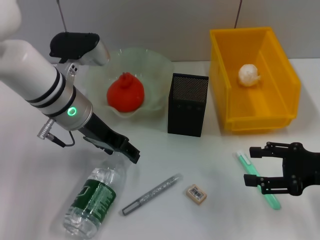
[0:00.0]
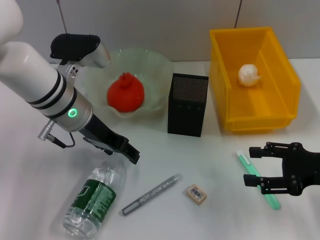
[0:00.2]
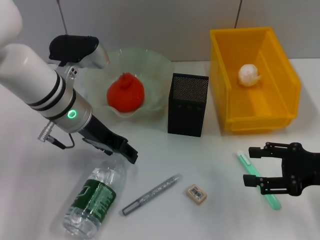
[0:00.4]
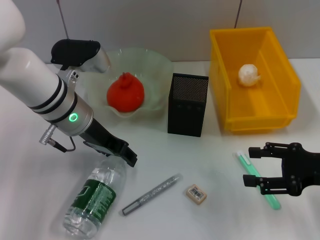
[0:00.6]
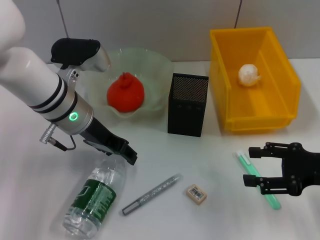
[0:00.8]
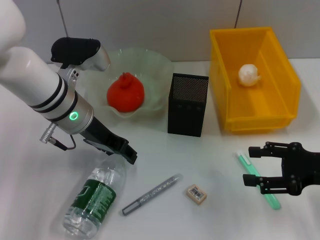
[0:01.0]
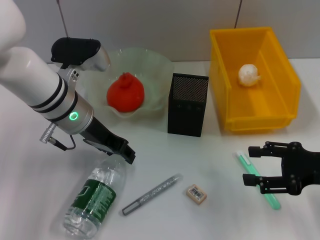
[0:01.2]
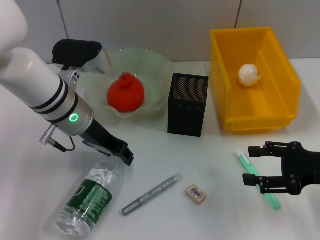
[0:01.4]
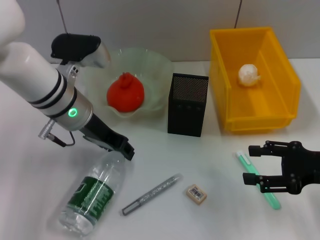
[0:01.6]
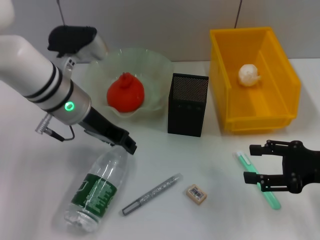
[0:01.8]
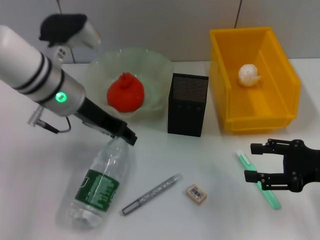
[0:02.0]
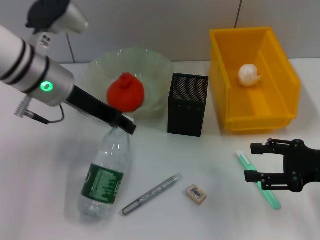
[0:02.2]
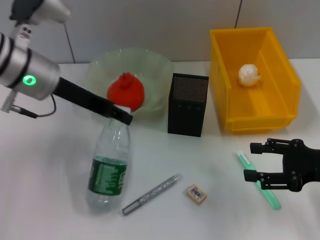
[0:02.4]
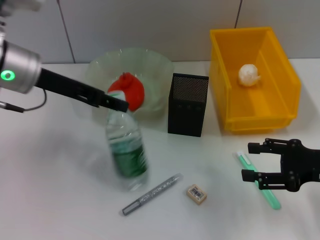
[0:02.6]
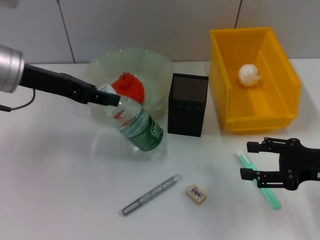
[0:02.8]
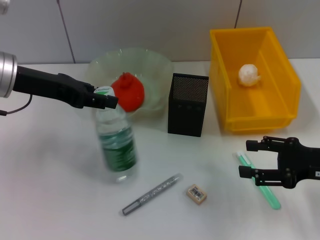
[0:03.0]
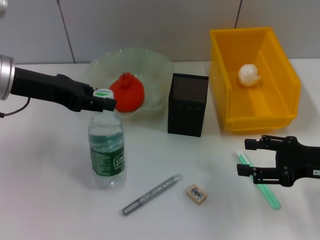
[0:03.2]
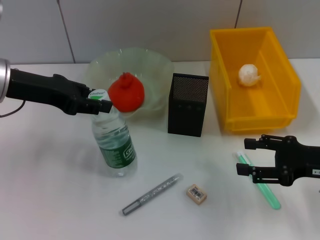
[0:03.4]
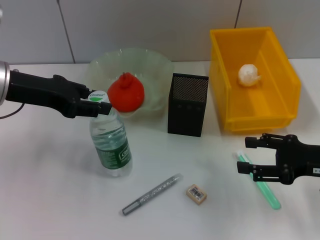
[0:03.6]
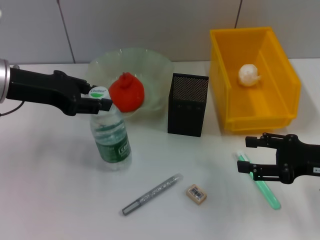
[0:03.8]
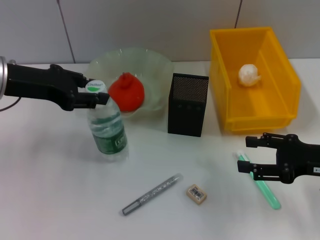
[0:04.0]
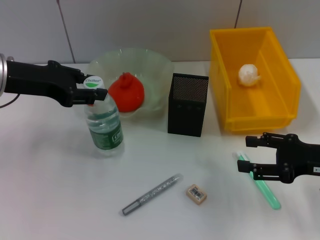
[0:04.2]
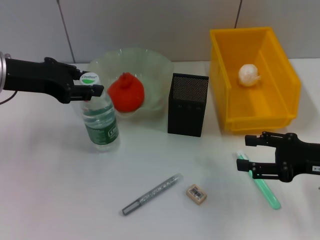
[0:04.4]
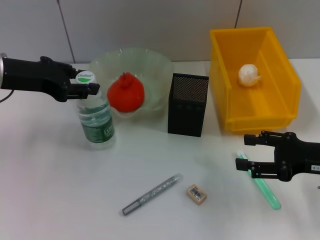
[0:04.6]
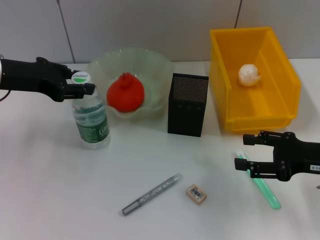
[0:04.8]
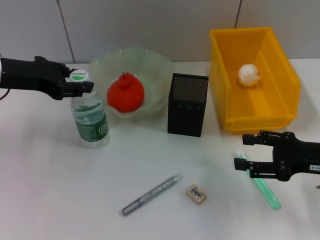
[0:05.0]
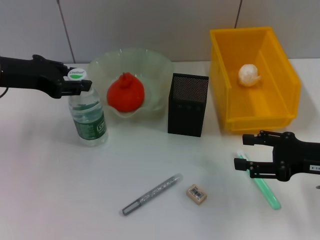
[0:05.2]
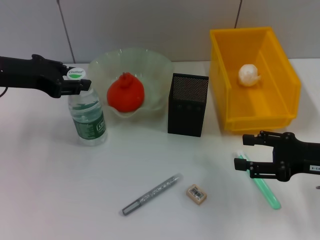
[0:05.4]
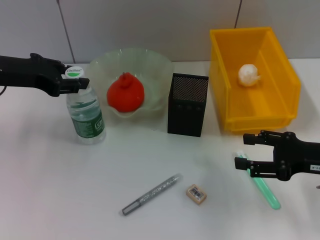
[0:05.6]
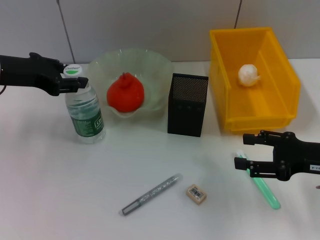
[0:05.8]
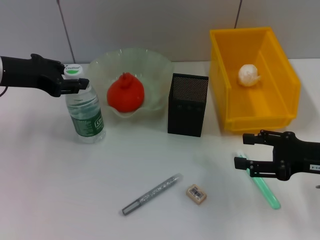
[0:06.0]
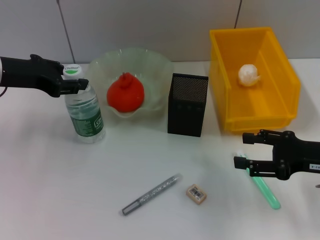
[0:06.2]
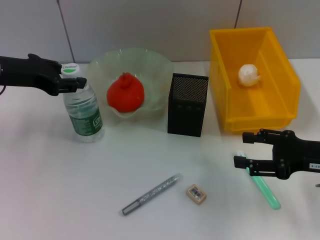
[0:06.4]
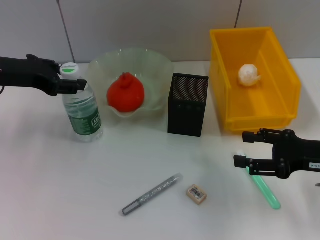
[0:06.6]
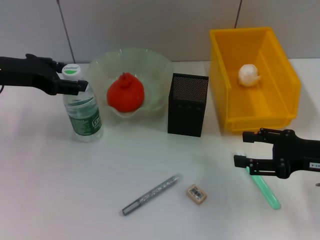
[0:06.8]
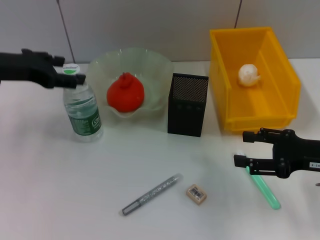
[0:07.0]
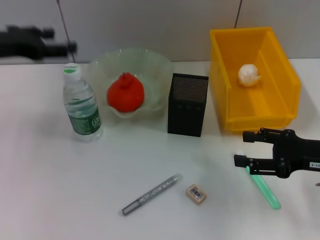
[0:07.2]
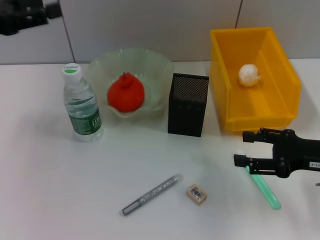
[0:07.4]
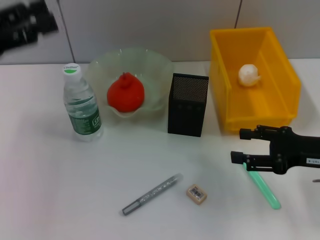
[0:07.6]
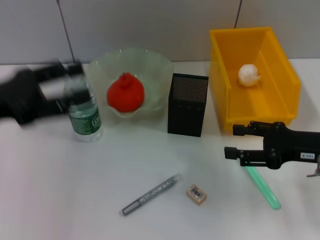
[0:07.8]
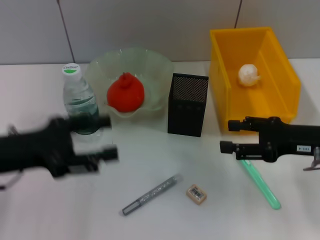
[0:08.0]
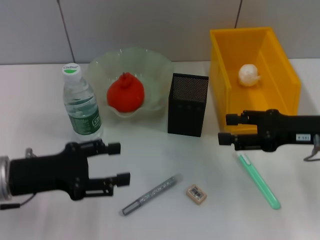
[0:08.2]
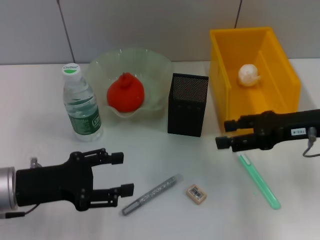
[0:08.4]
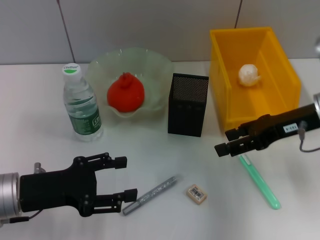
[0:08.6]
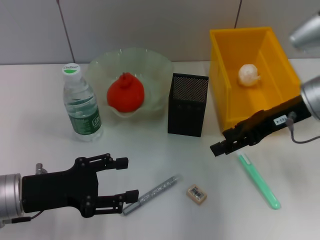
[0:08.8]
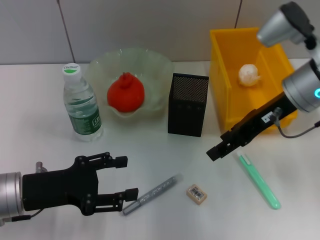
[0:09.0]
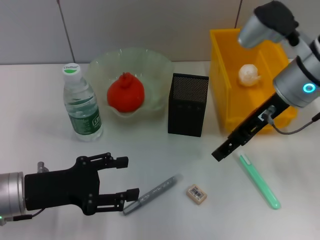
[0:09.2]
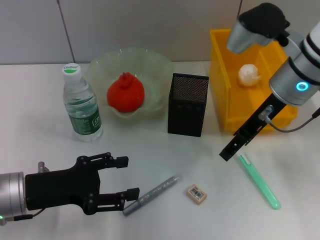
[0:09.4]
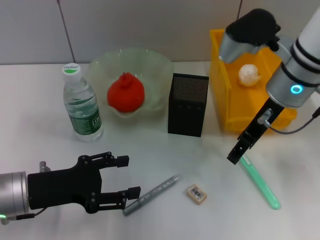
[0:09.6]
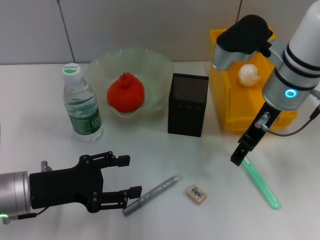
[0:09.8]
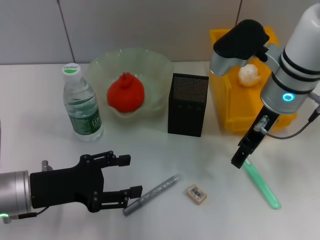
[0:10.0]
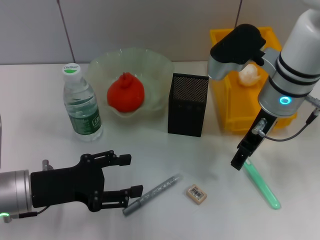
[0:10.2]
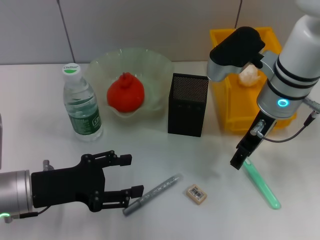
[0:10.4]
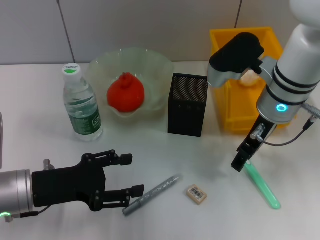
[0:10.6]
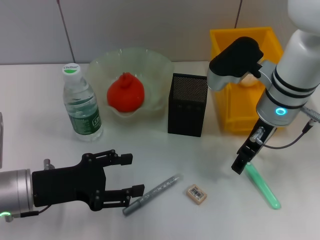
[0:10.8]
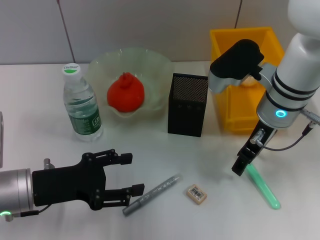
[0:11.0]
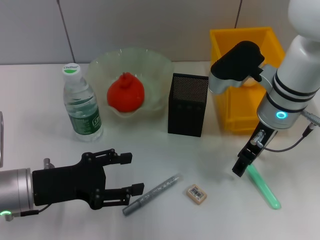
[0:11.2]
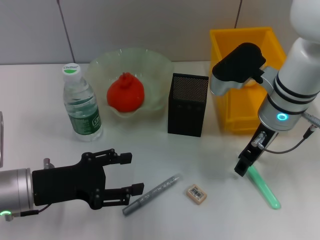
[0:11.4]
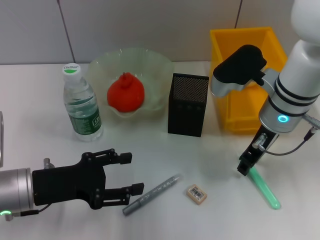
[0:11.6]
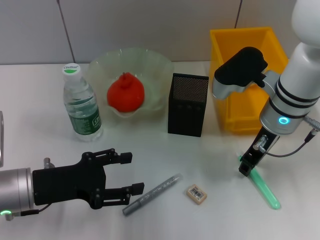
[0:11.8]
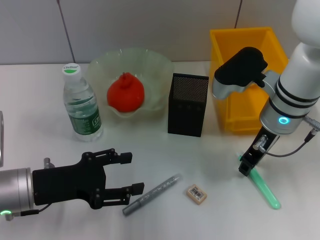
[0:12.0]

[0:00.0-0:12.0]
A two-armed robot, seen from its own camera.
Step, 0:01.6 to 0:03.2: Place the water bottle on the table with the left hand.
0:00.0 to 0:01.6: The left gripper closes.
0:01.6 to 0:03.0: The left gripper heads to the left and upward, covering about 10 cm.
0:03.0 to 0:04.4: The grippers stay close to where they were, moving slightly.
0:04.4 to 0:06.0: The grippers stay close to where they were, moving slightly.
0:06.0 to 0:07.6: The left gripper goes about 5 cm backward, and opens.
0:07.6 to 0:09.0: The right gripper goes approximately 15 cm to the left, upward and forward. Meanwhile the left gripper is displaced downward and to the right by roughly 15 cm.
0:09.0 to 0:10.4: The right gripper changes place by approximately 5 cm.
0:10.4 to 0:12.0: The right gripper closes its fingers.

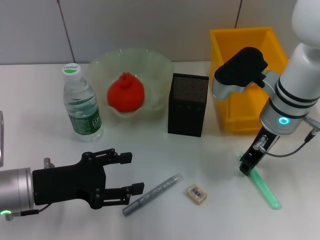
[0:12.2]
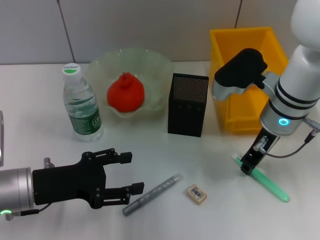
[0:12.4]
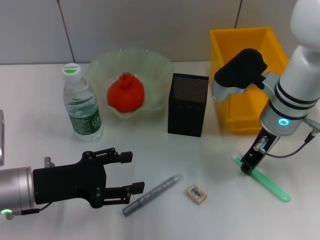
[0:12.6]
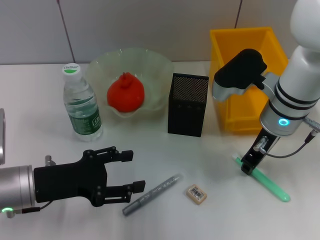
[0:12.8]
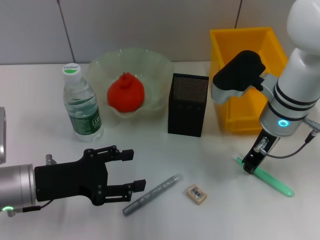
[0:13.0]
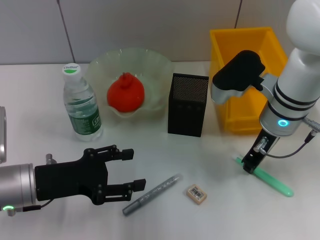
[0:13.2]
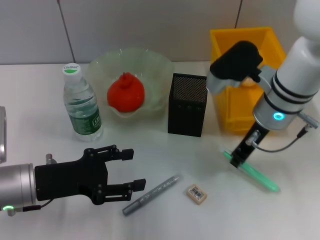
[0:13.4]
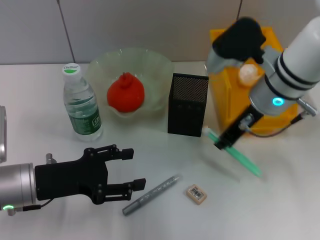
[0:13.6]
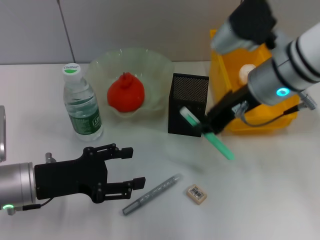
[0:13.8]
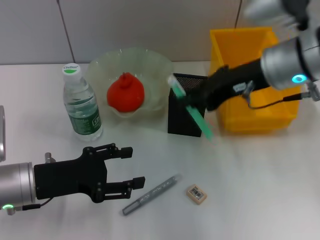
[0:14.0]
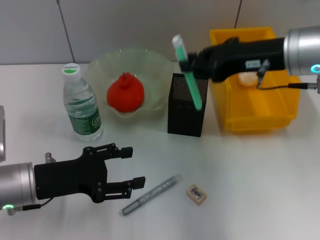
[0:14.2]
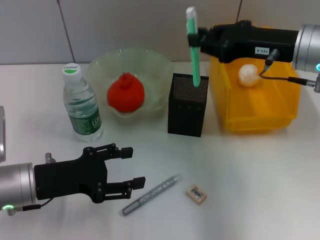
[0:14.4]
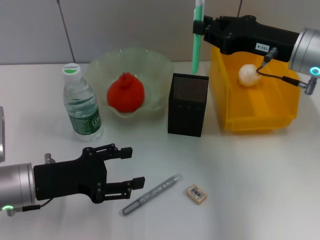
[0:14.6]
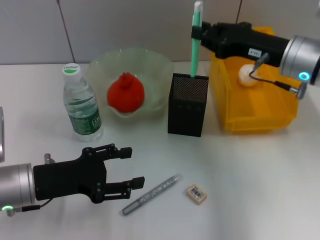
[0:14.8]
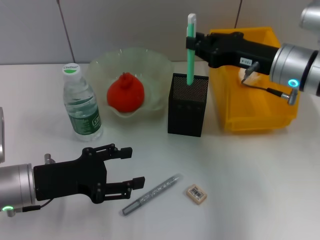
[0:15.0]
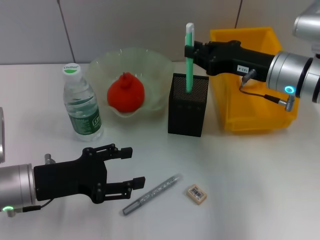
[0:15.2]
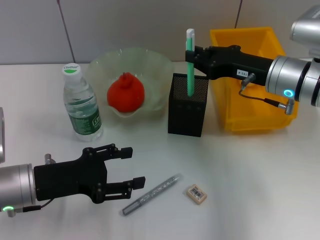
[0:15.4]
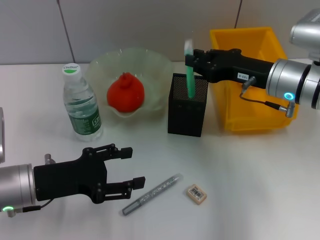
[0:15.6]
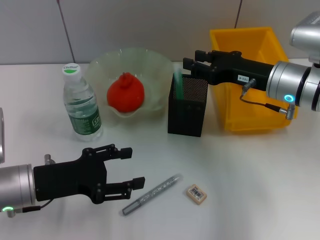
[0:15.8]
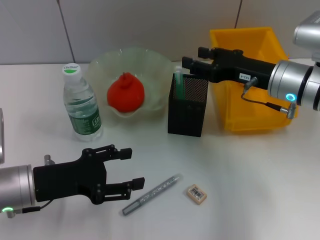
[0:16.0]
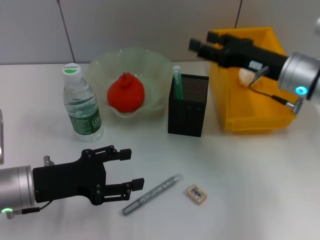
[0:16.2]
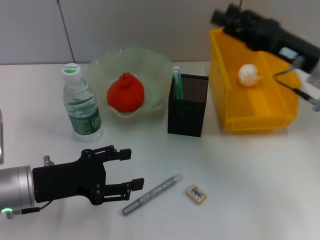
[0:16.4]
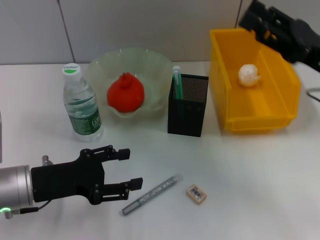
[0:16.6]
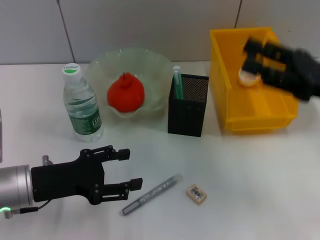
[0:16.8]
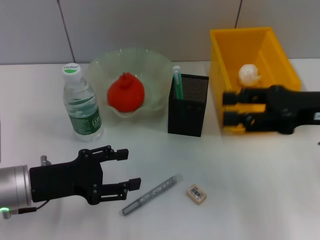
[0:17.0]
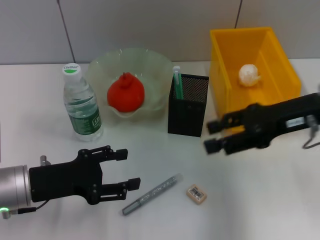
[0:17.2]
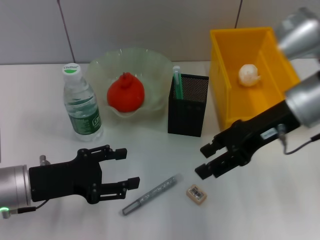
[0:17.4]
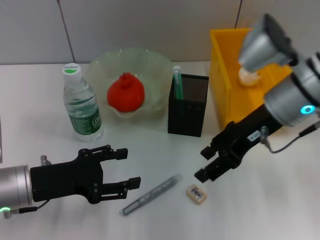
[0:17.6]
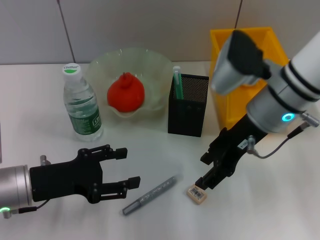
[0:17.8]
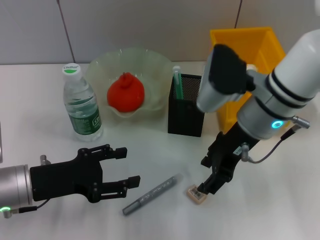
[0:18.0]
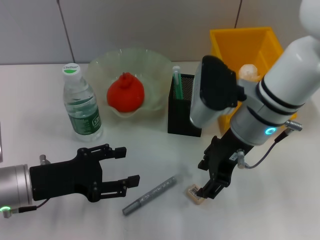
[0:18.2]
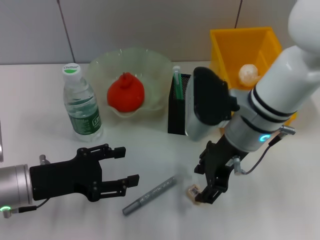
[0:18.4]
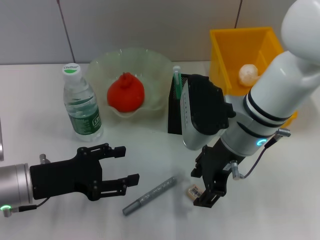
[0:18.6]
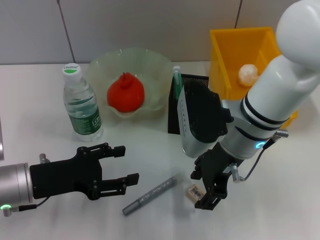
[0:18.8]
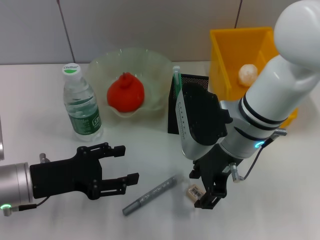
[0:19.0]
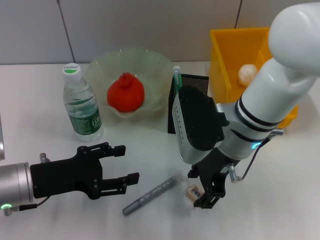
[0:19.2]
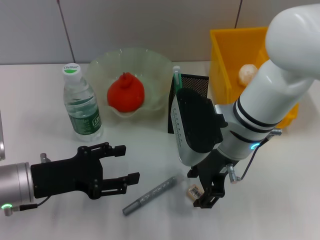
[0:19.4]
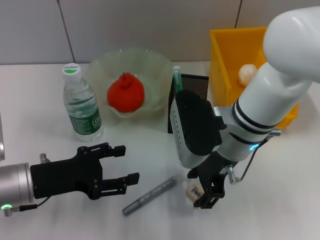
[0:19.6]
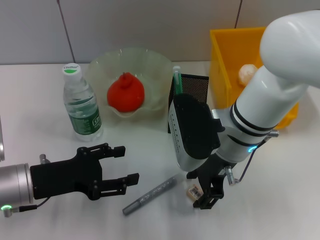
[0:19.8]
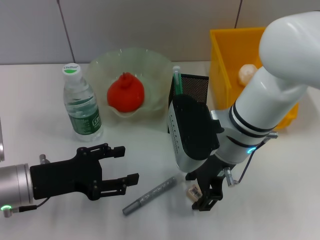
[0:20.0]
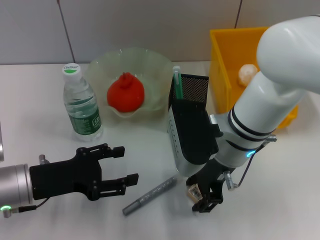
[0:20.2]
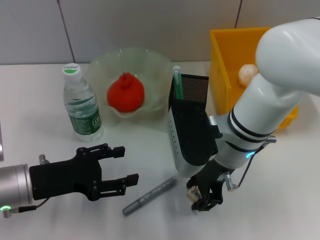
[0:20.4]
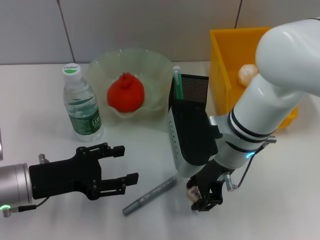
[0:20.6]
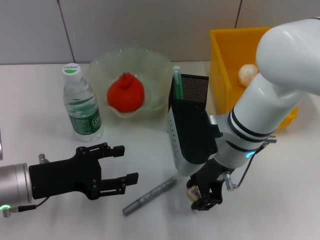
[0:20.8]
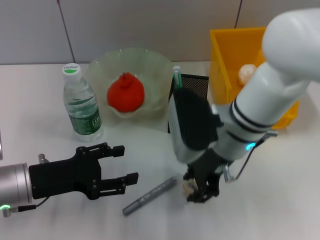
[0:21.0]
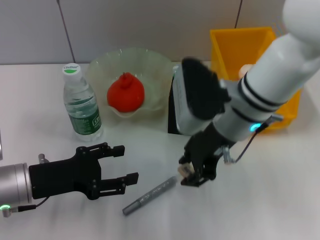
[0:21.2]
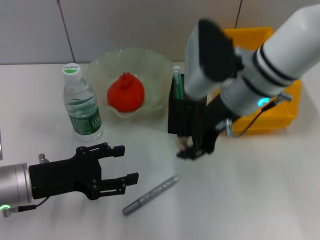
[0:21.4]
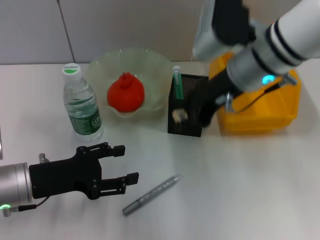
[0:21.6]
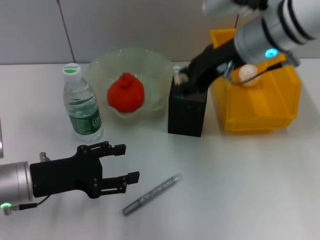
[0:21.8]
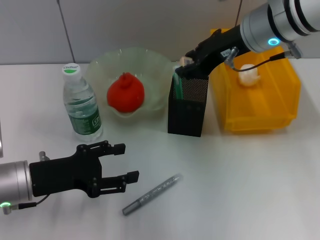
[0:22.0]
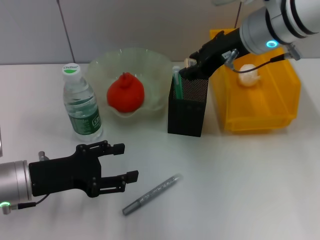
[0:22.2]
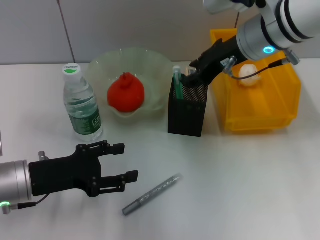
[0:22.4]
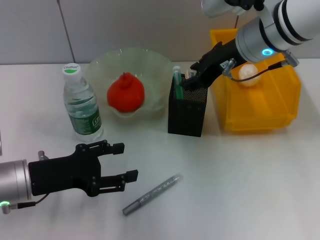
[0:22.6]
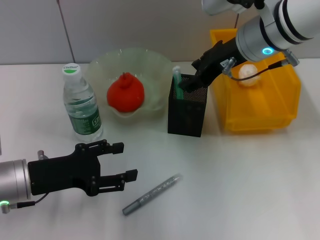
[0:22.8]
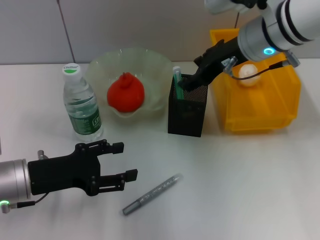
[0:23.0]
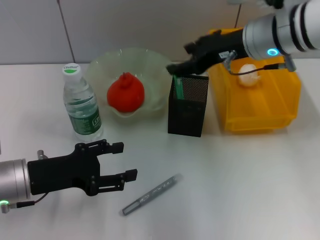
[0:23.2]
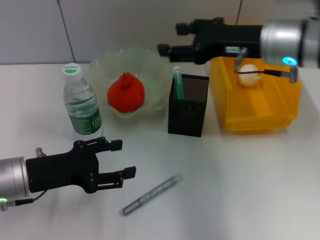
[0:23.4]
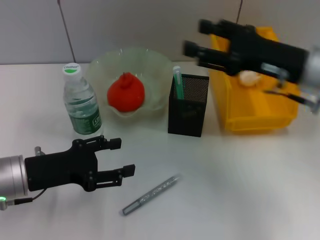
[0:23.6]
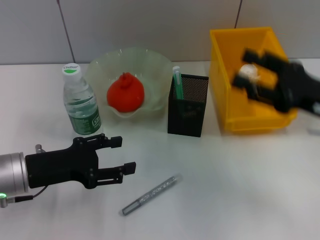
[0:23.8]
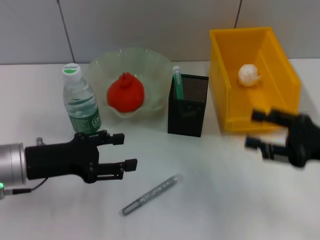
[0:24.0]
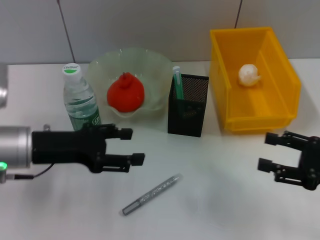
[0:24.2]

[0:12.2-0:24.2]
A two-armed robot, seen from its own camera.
Step, 0:12.8 to 0:15.8: Place the blue utility knife into the pen holder with the right hand.
Step, 0:16.0 to 0:20.2: Grab the eraser with the right hand.
Step, 0:20.4 to 0:22.6: Put the eraser into the pen holder with the right hand.
0:12.2 to 0:13.8: The right gripper travels upward by some 5 cm, and closes up.
0:13.8 to 0:15.2: The right gripper shifts approximately 10 cm downward and to the right.
0:15.2 to 0:16.6: The right gripper is displaced to the right and backward by about 10 cm, and opens up.
0:16.6 to 0:18.2: The right gripper is displaced to the left by roughly 15 cm.
0:18.2 to 0:21.2: The grippers make only small movements.
0:21.2 to 0:22.6: The right gripper moves forward and upward, some 10 cm.
0:22.6 to 0:24.2: The right gripper goes approximately 30 cm to the right, backward and downward, and opens. Meanwhile the left gripper heads upward, covering about 5 cm.
